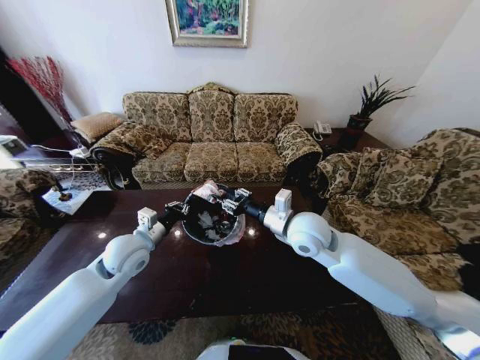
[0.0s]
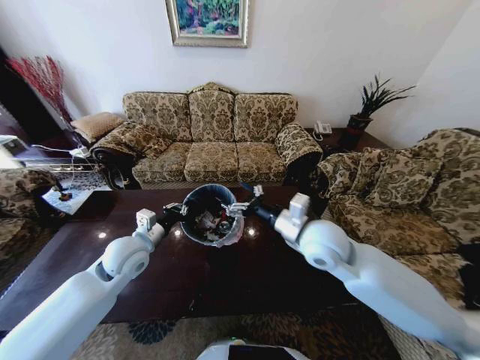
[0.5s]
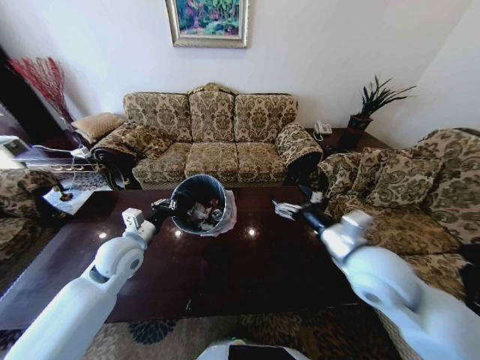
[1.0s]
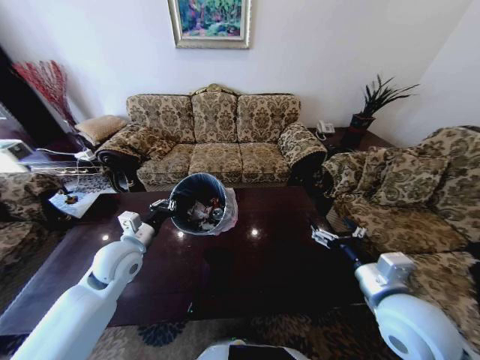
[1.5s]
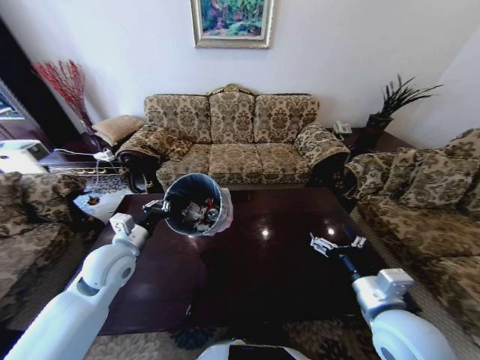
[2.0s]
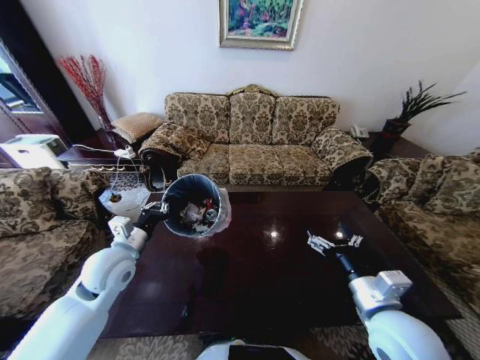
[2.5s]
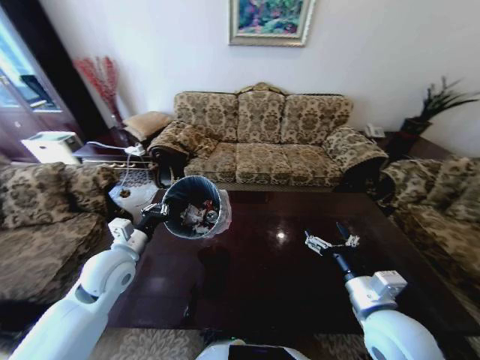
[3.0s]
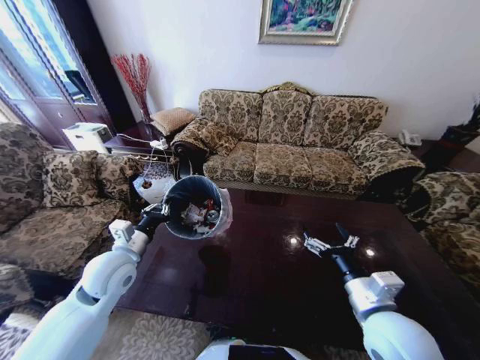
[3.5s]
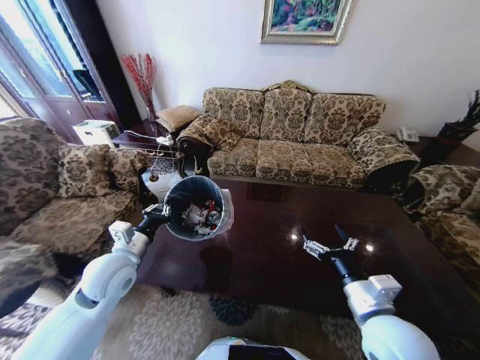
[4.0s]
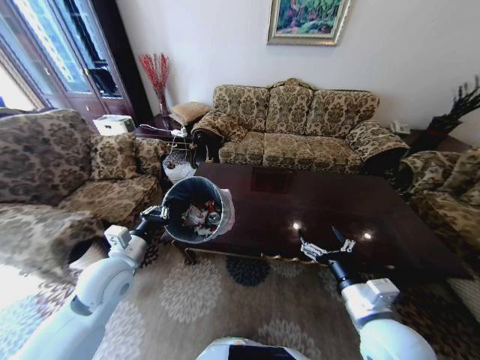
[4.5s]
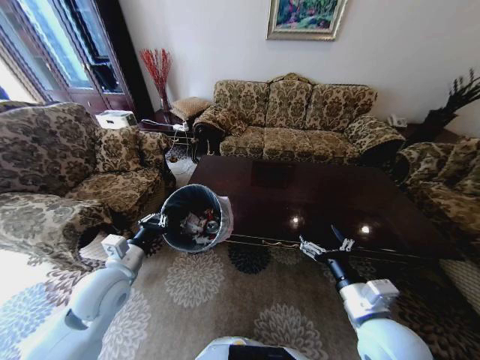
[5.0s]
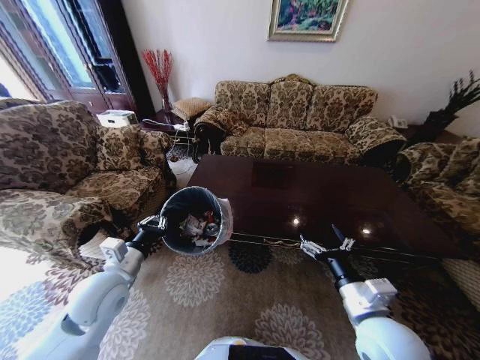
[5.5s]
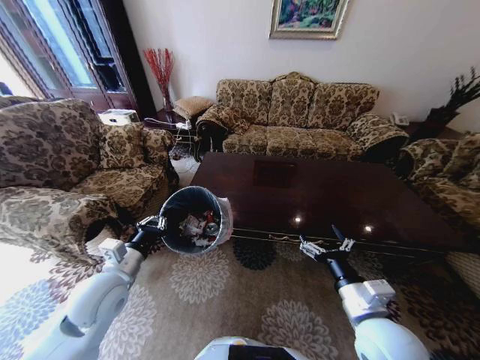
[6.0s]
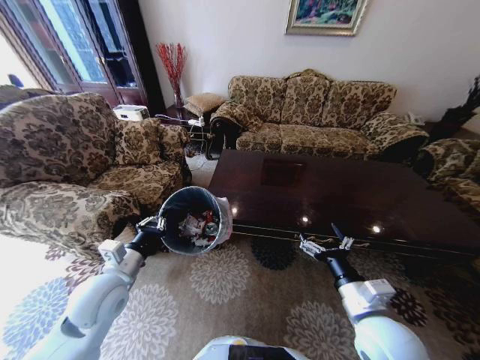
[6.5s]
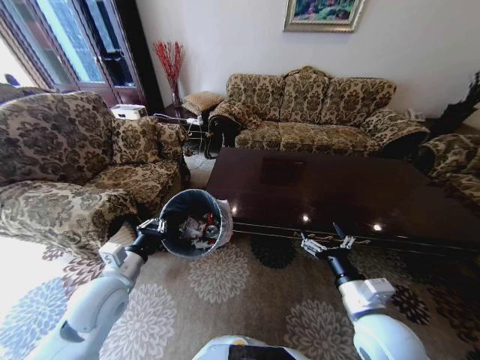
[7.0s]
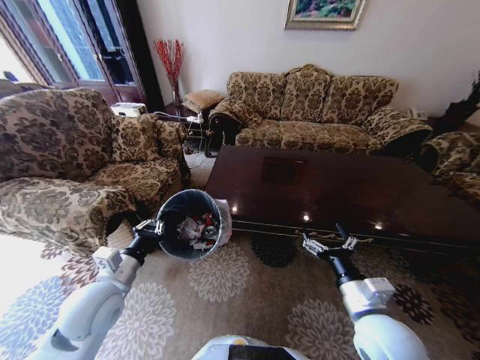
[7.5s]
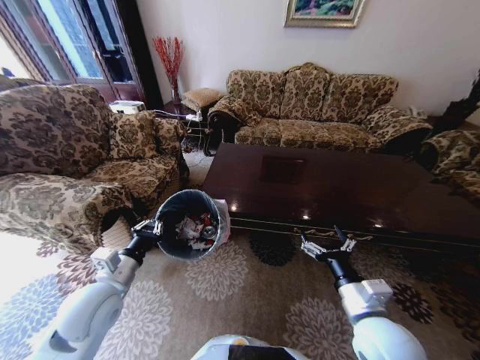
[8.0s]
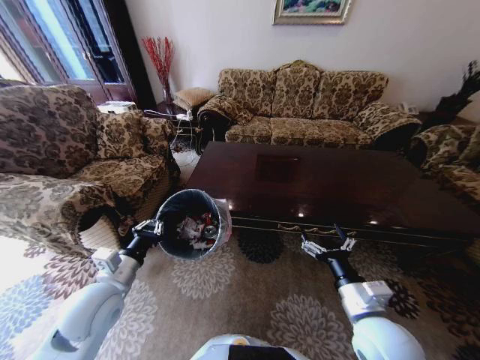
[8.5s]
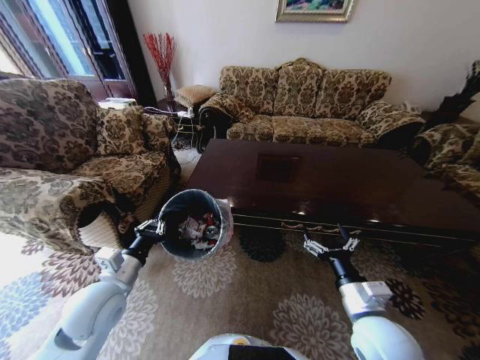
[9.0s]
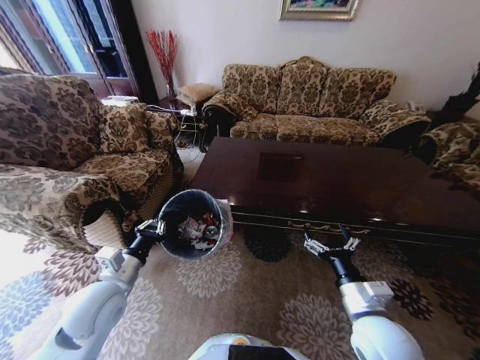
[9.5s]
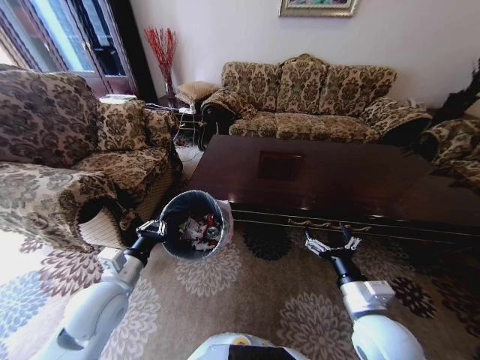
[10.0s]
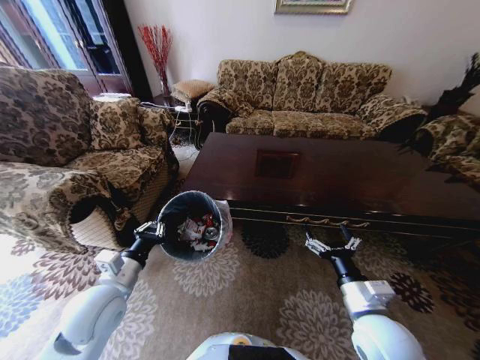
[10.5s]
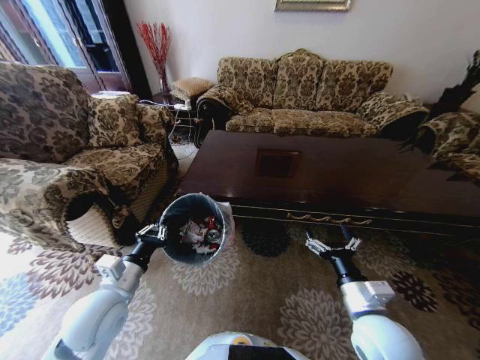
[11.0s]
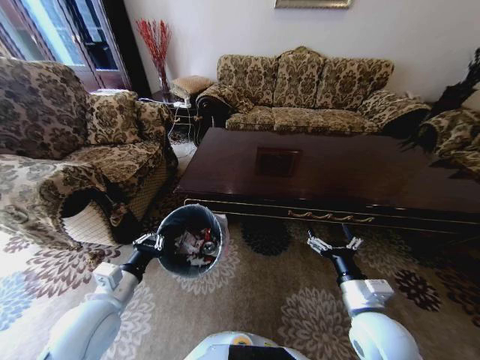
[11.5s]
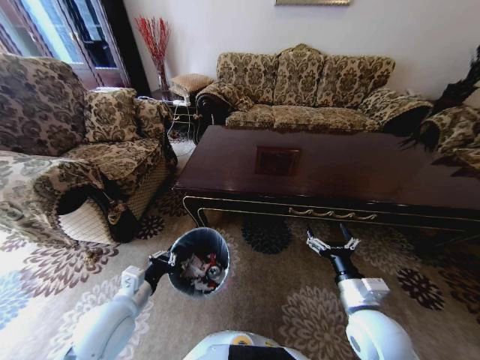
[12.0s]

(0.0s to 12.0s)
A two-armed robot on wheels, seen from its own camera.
Task of the whole recording: Move to the front of the table and place the trash on the table into the trash bin.
0.0s - 2.0s: The right gripper shifts approximately 20 cm backward and to the right, and opens.

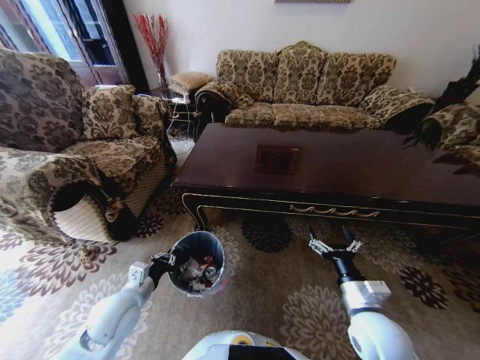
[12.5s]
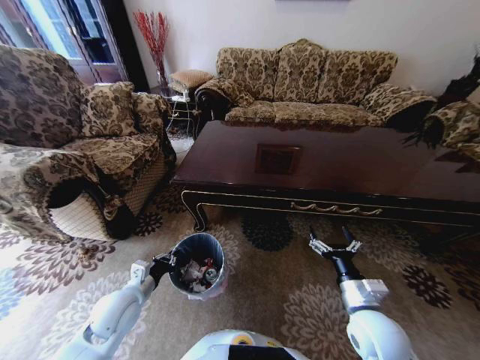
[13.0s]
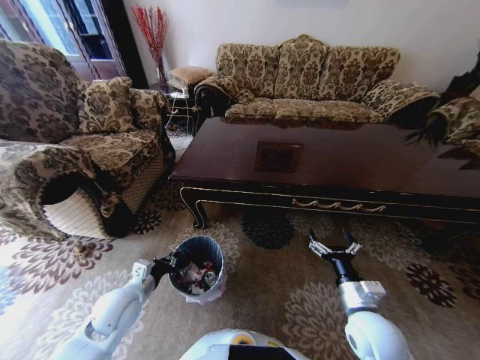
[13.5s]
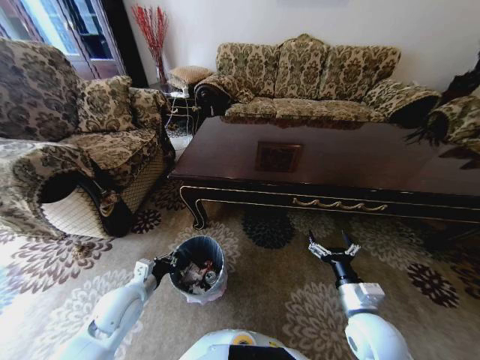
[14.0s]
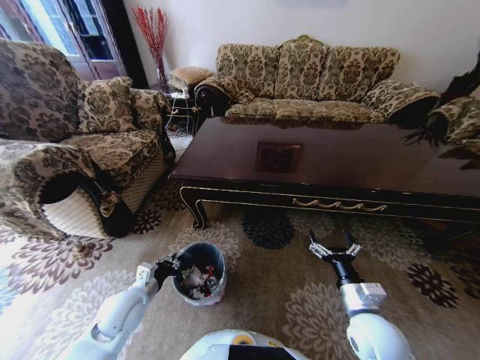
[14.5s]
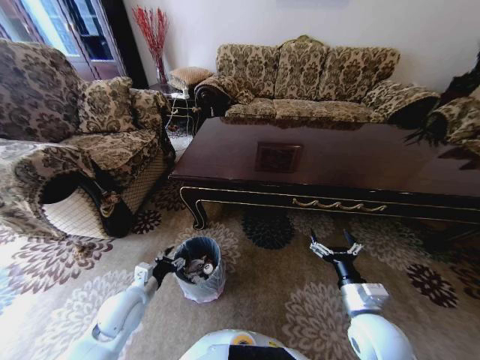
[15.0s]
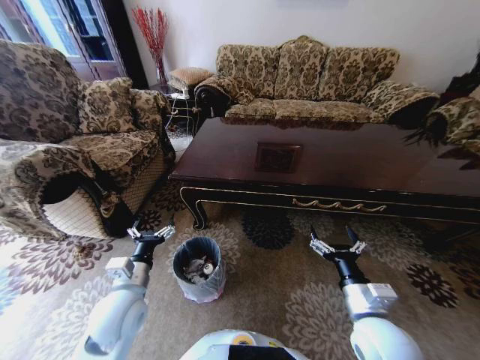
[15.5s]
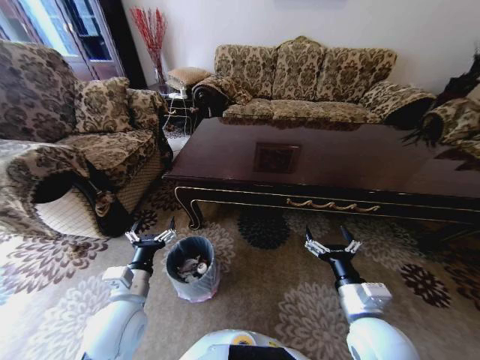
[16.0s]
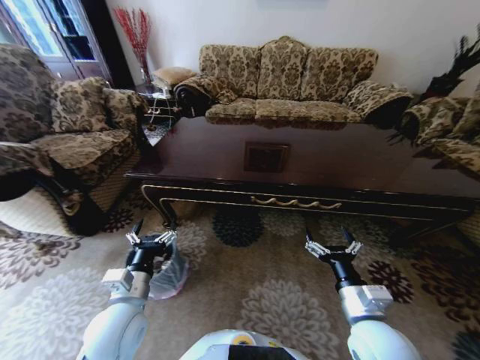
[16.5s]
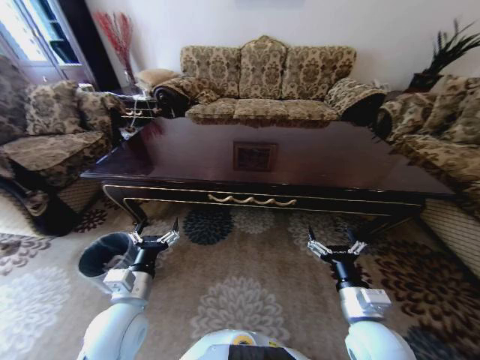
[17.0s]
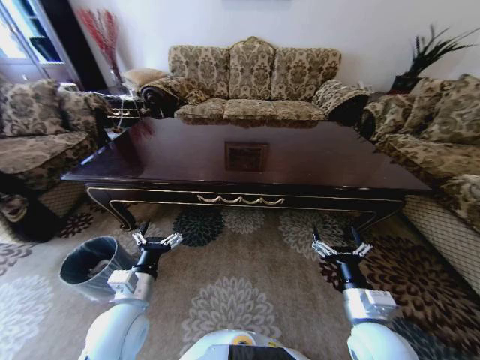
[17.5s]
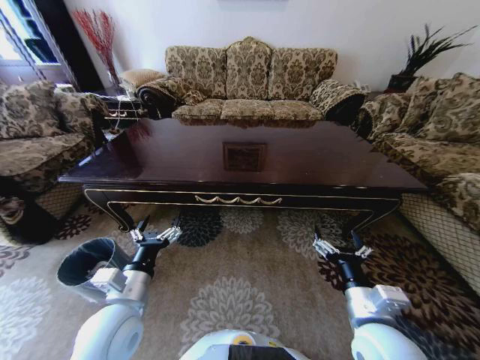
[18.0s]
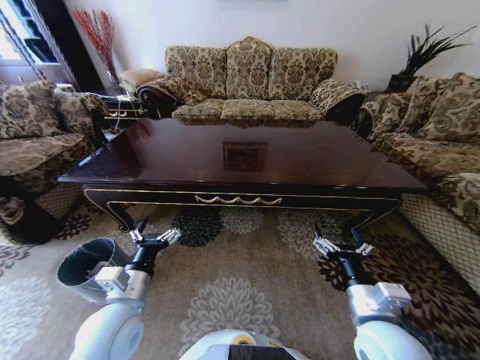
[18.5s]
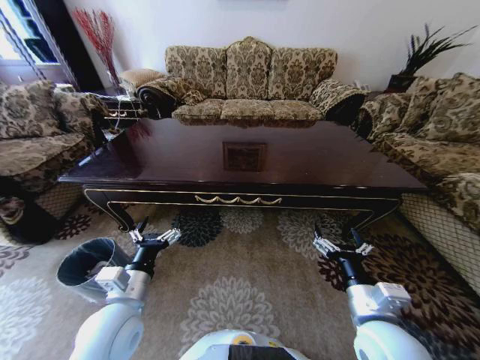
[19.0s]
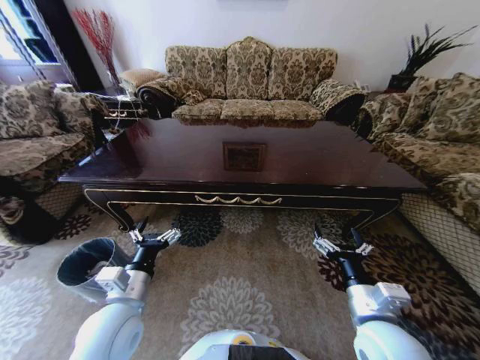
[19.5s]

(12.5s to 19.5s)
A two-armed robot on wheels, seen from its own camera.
Task of the whole recording: Move to the front of the table and place the trash on the table into the trash bin.
14.5s - 16.0s: The left gripper travels upward and to the right by some 10 cm, and opens its fingers; the right gripper moves approximately 5 cm.
17.5s - 19.5s: The grippers stay close to where they were, moving slightly.

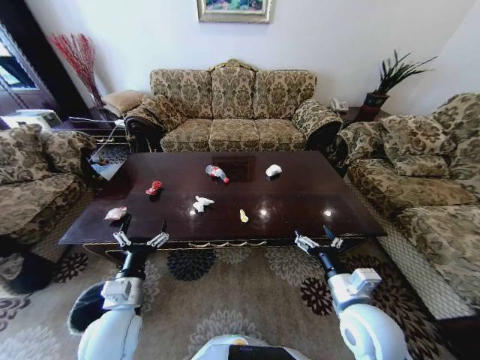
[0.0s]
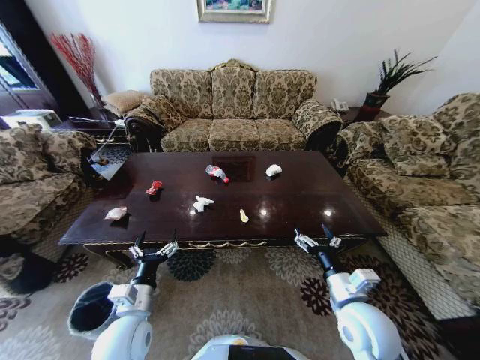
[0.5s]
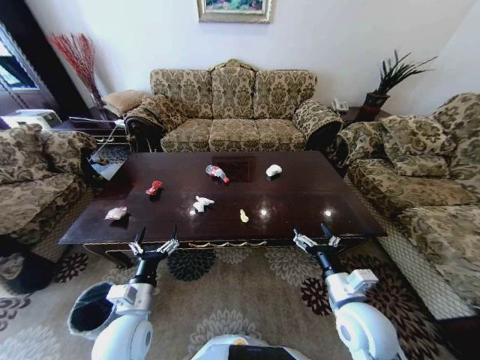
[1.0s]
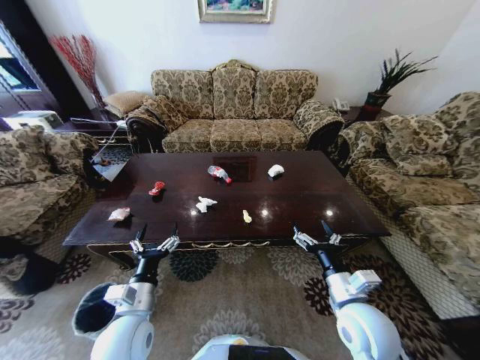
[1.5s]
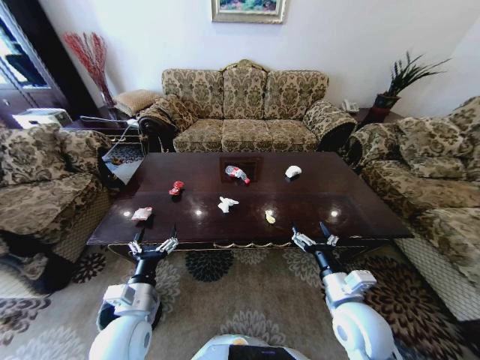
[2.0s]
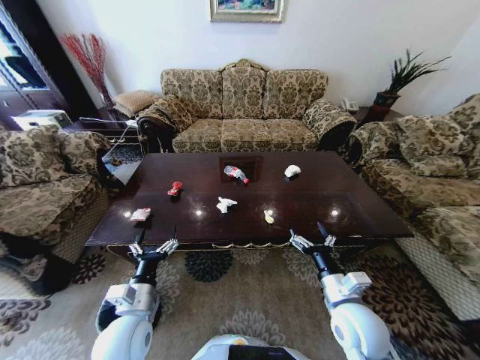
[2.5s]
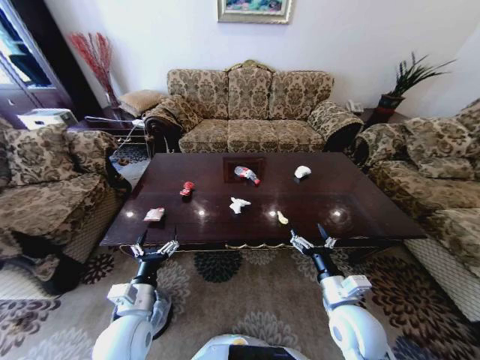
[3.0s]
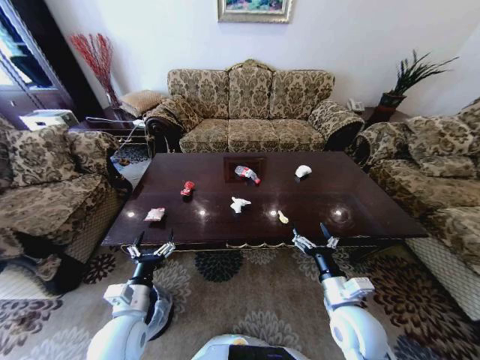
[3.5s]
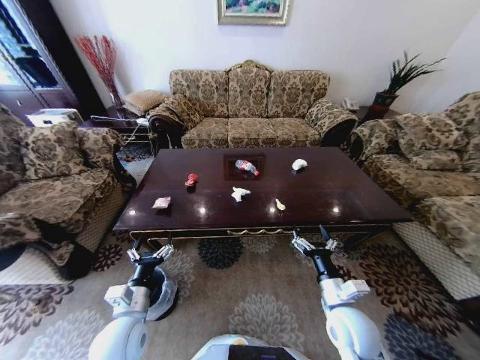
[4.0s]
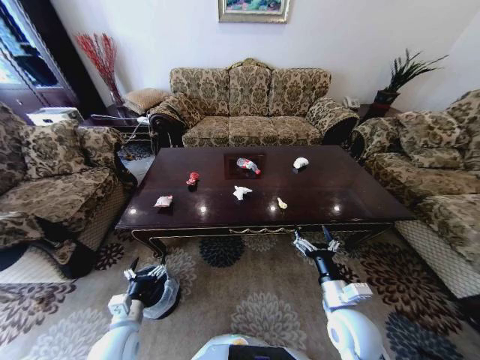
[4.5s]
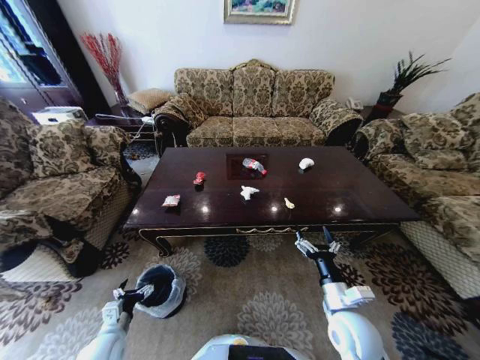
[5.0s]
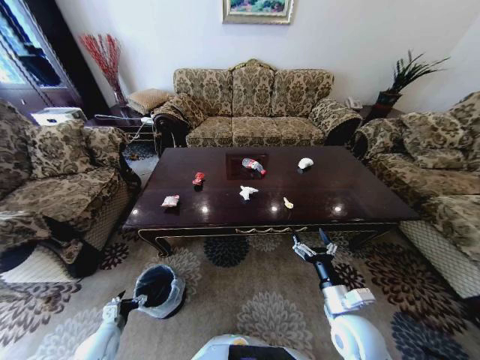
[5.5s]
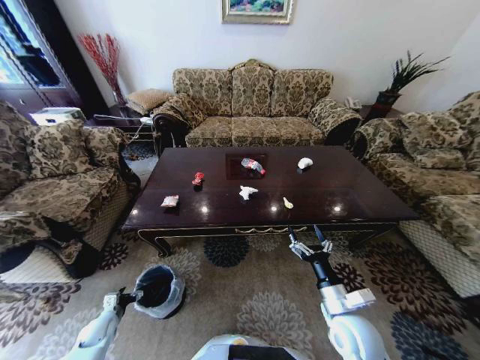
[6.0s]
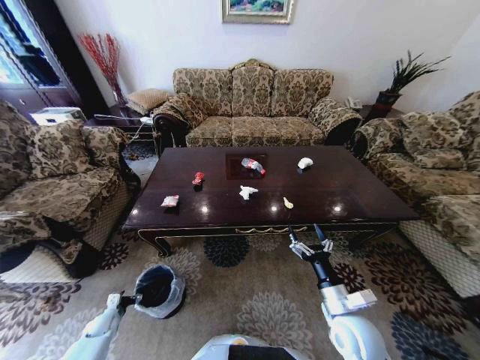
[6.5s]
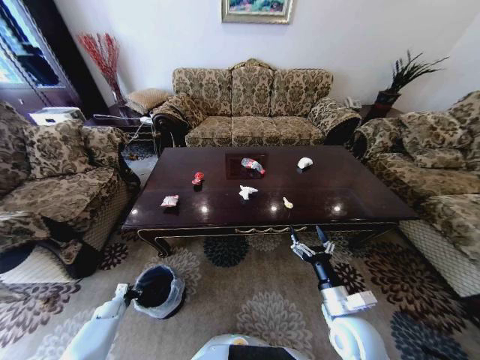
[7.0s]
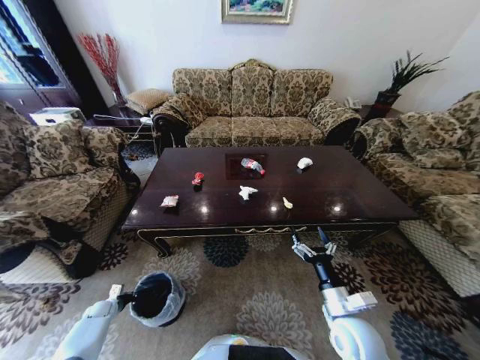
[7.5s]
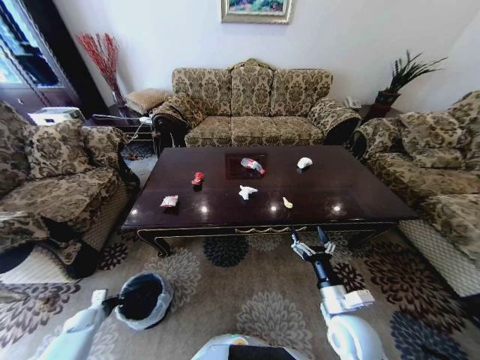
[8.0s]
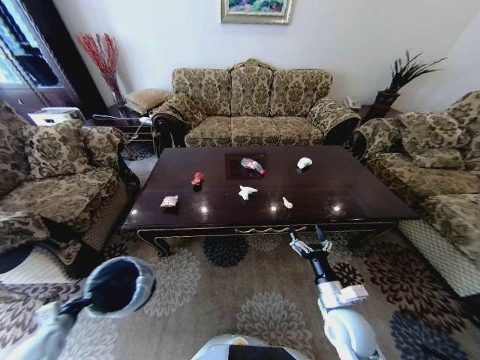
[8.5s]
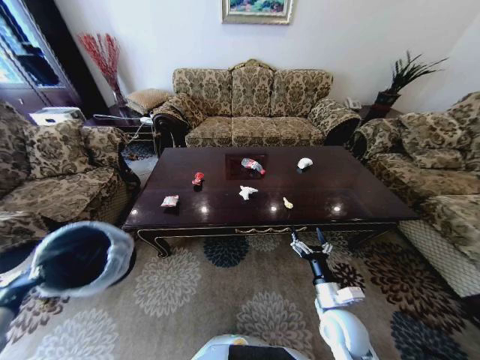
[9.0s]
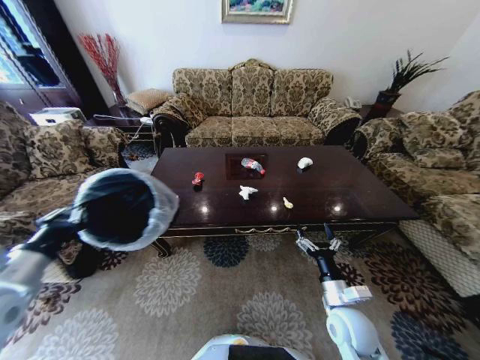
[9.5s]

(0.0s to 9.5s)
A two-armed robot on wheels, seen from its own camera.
Task of the whole recording: Move to the front of the table and place the trash on the table into the trash bin.
4.0s - 5.5s: The left gripper shifts some 25 cm downward and to the left.
5.5s - 7.5s: The left gripper moves to the left, forward and downward, roughly 20 cm, and closes.
7.5s - 9.5s: The left gripper moves upward, roughly 40 cm.
